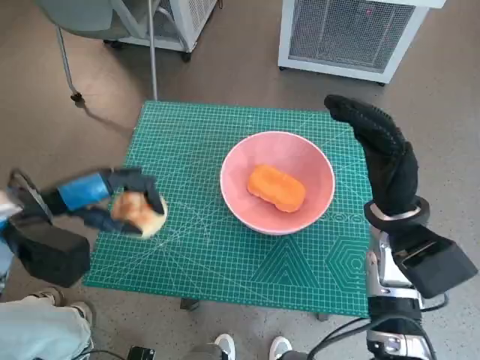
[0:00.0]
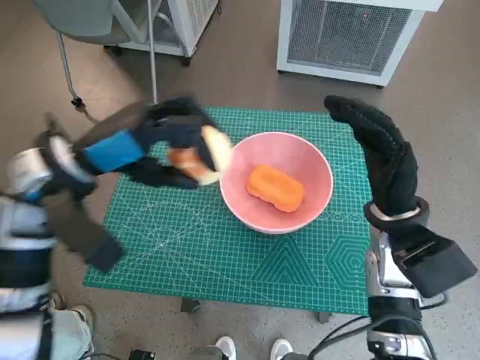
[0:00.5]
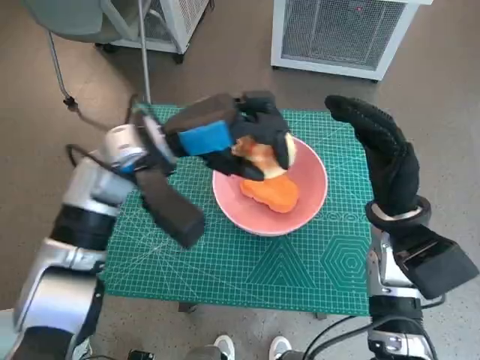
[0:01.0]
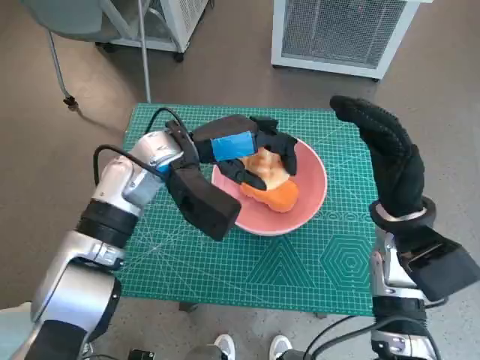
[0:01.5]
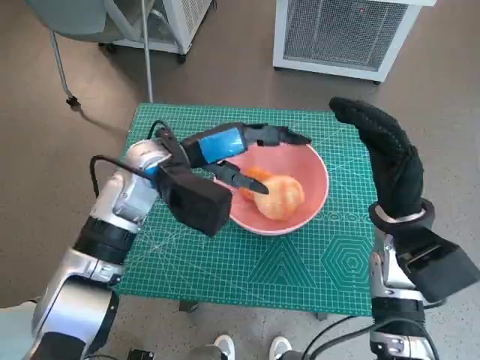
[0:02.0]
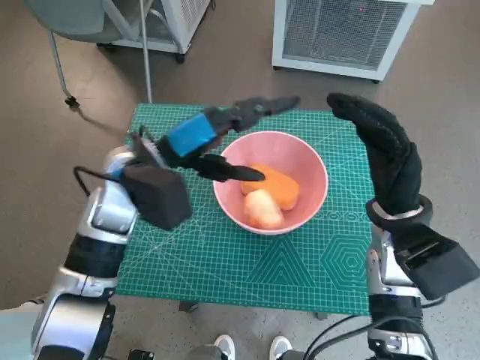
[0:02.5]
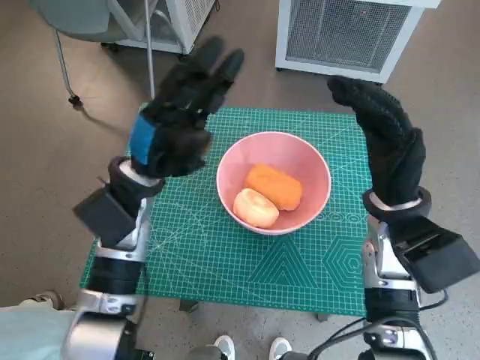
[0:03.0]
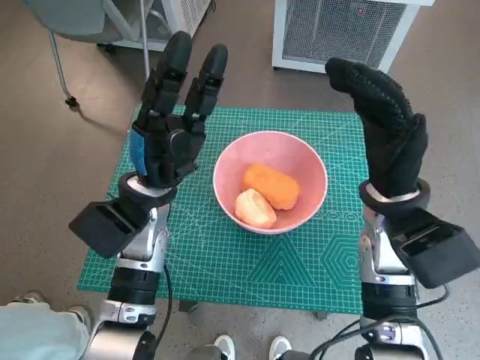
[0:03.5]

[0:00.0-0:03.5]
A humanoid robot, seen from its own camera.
Task of the whole recording: Push the bowl to the center of the table and put the bread into the bowl.
Step, 0:00.0 to 0:02.0: Place the round bread in pink bowl with left hand.
0:00.0 to 0:02.0: The left hand goes roughly 20 cm to the right and forward.
0:02.0 to 0:03.5: The left hand changes place by some 5 cm.
